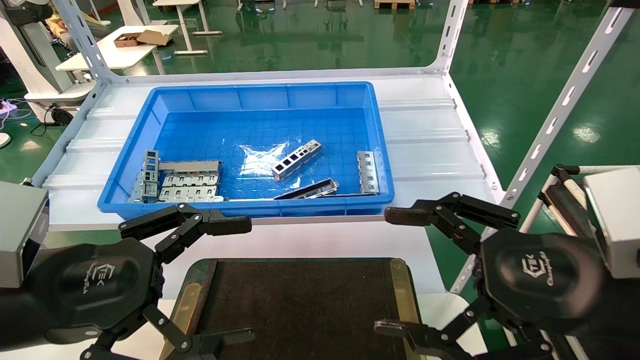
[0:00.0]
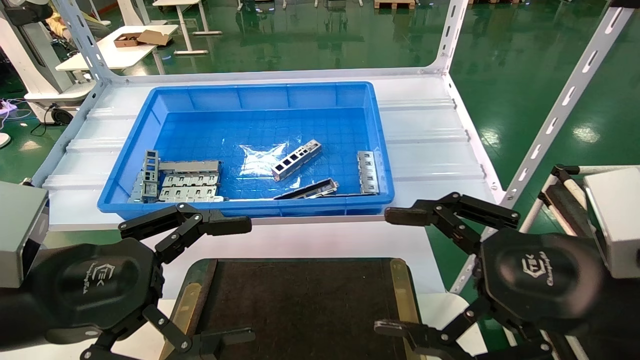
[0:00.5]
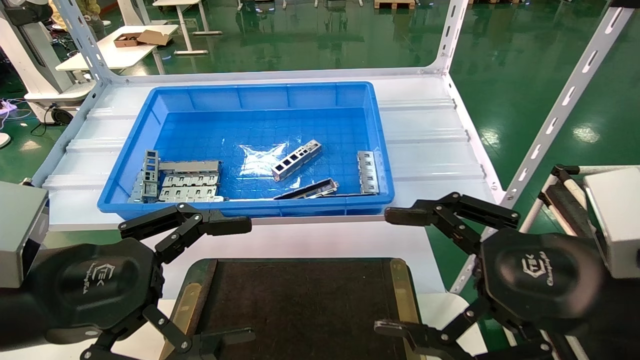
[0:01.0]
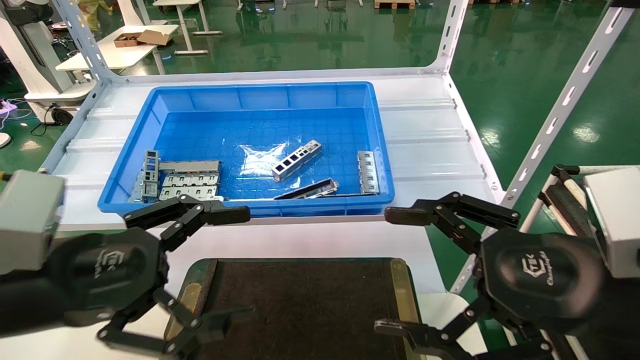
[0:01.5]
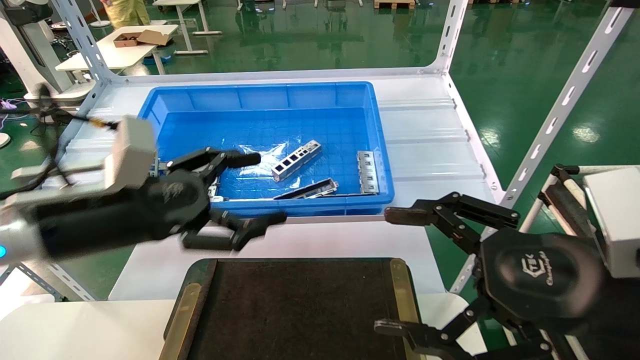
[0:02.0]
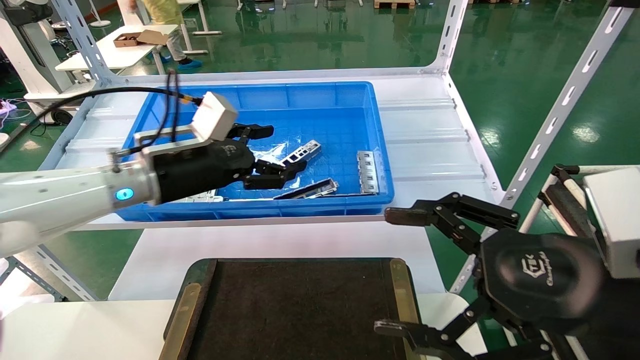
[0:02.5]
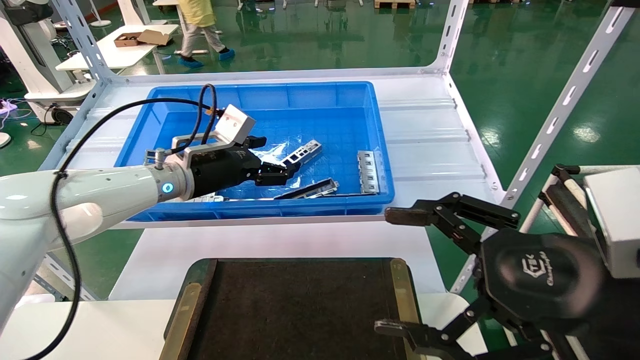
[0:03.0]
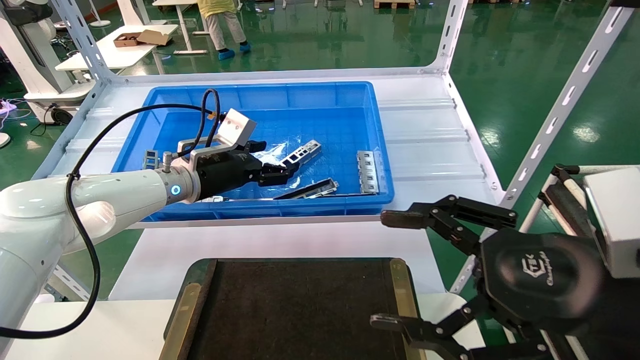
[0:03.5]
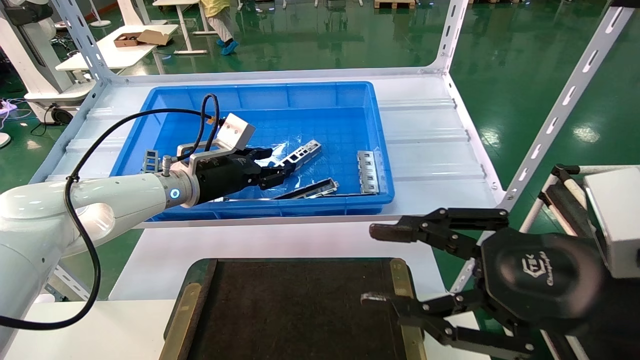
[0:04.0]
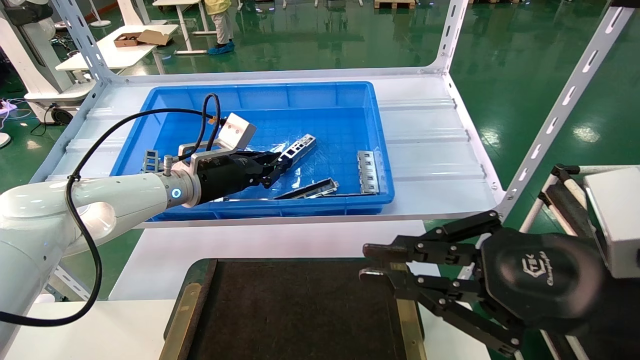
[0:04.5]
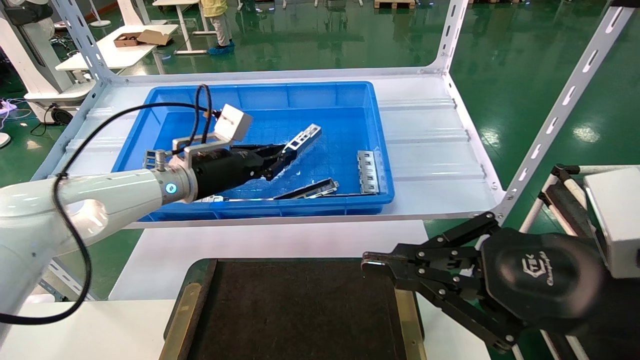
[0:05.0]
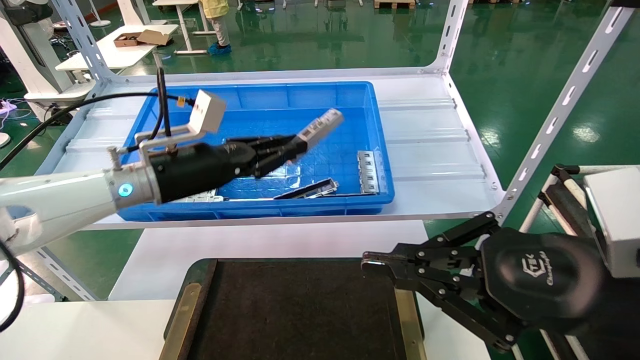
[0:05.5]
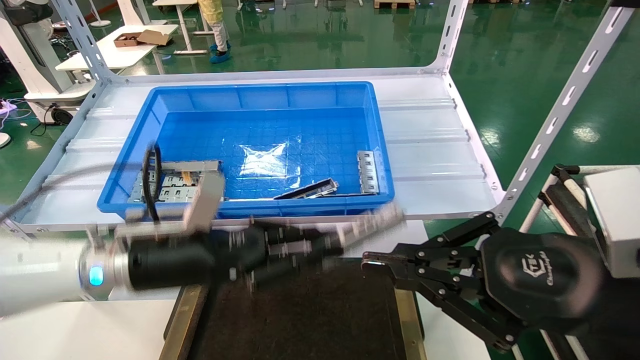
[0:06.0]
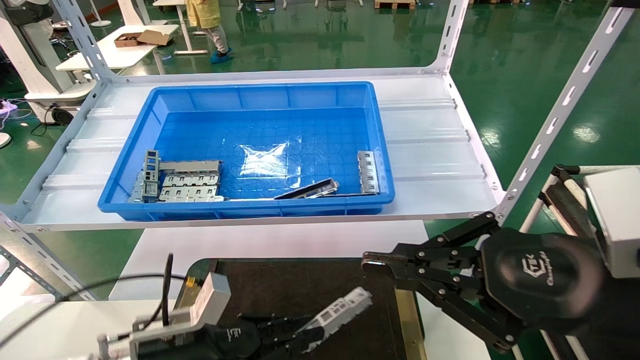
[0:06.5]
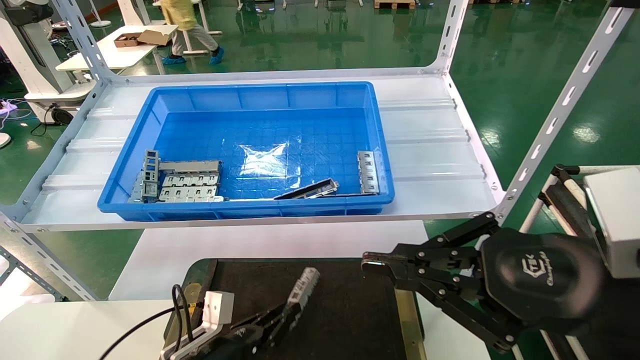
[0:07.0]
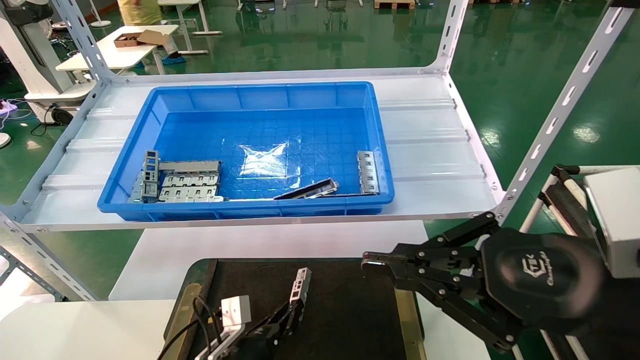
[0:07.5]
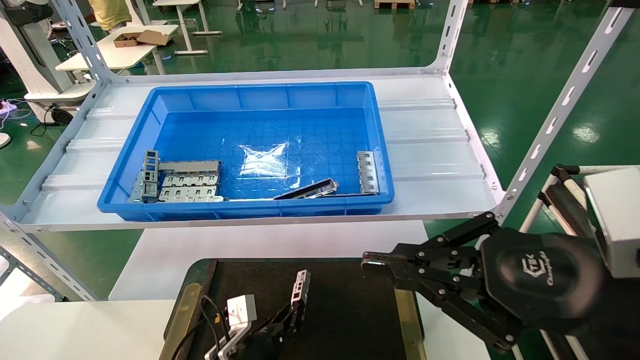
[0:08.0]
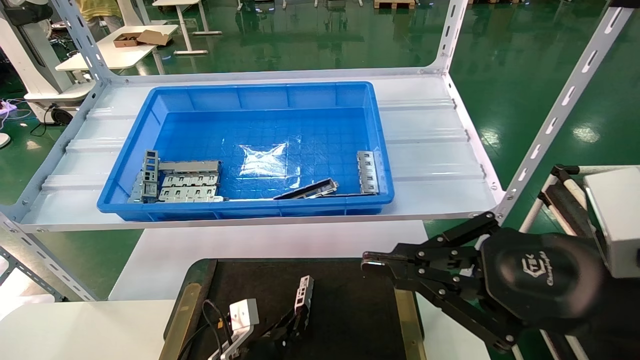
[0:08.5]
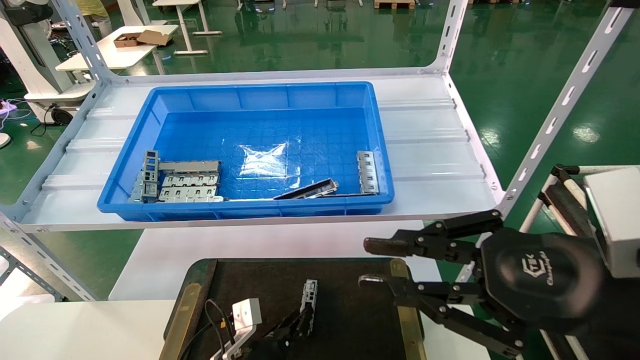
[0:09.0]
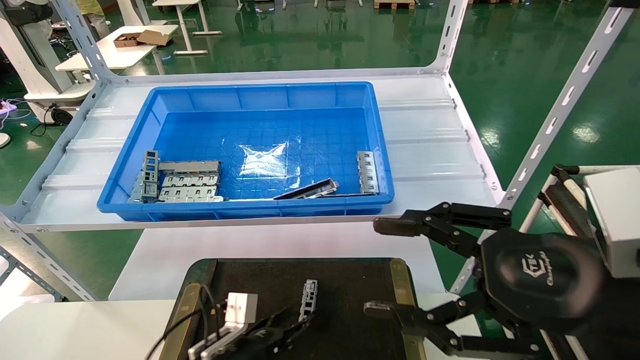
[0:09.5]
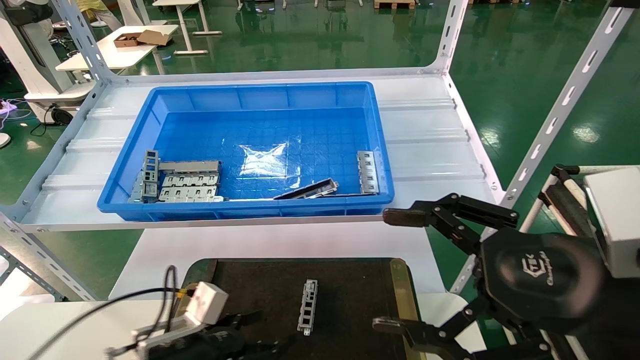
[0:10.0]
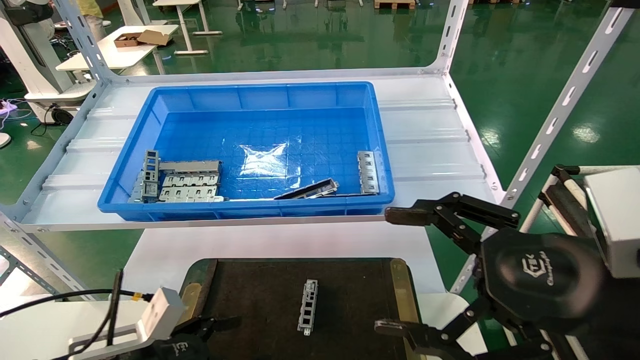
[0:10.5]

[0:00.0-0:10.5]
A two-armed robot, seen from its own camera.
Task of the whole recording: Grasp the part with one hand and place it on the black container.
Step, 0:02.0 to 0:04.5: Pick up the front USB bracket from the feeding area.
Step, 0:05.0 to 0:09.0: Place the front USB bracket into the box.
0:00.0 to 0:02.0: The left gripper shifts about 10 cm forward.
0:02.0 to 0:04.0: The right gripper closes up; the left gripper goes approximately 20 cm forward, and closes its fingers.
0:04.0 to 0:06.5: The right gripper closes. Meanwhile the left gripper heads downward and backward, covering some 25 cm, and closes up.
0:06.5 to 0:08.5: The left gripper travels downward, to the right and forward by about 15 cm.
0:08.5 to 0:10.5: The right gripper opens; the left gripper travels to the left, upward and backward by about 20 cm, and opens its fingers.

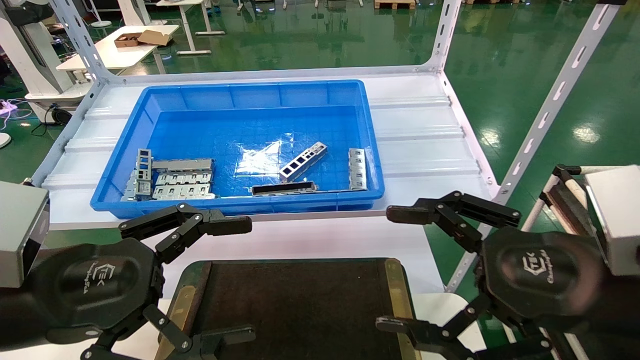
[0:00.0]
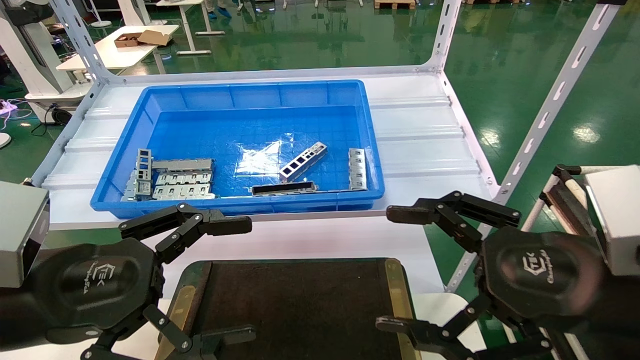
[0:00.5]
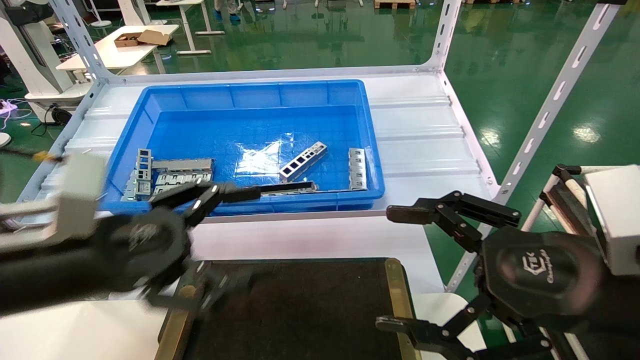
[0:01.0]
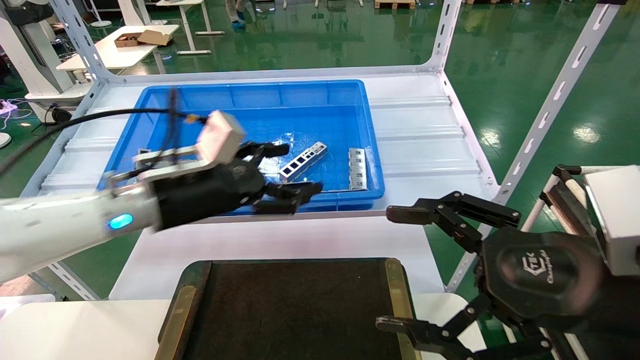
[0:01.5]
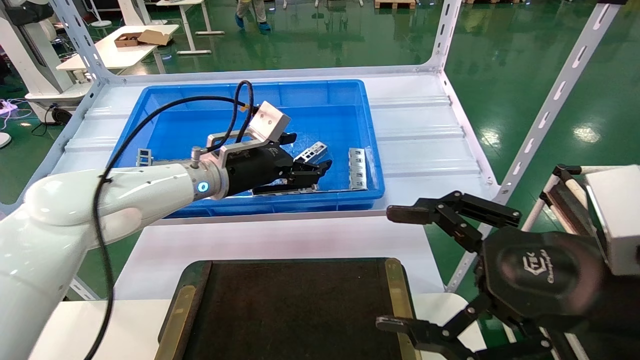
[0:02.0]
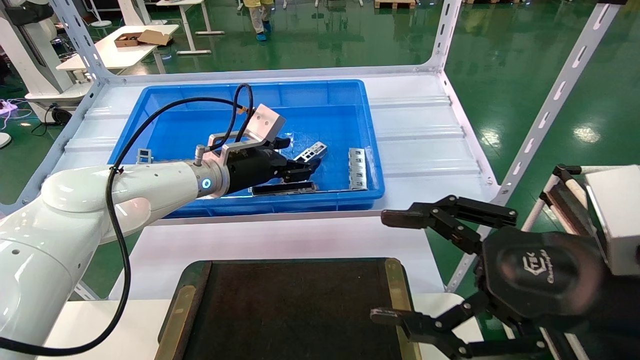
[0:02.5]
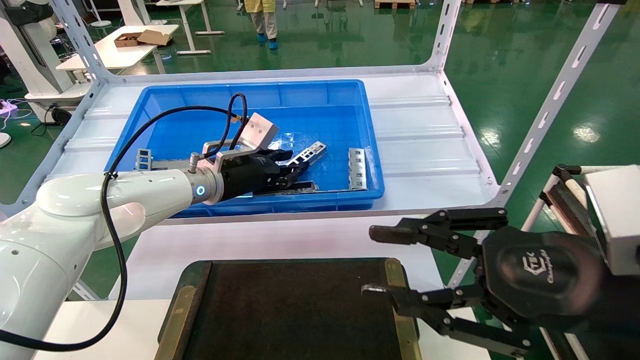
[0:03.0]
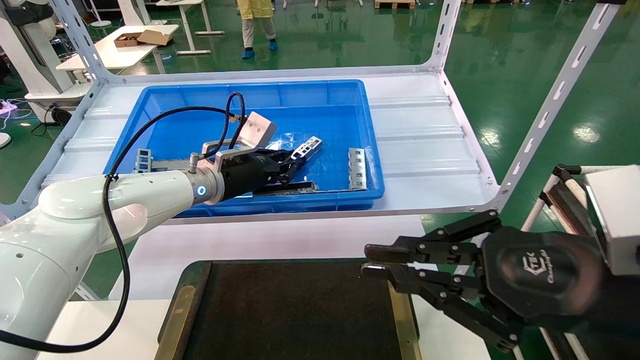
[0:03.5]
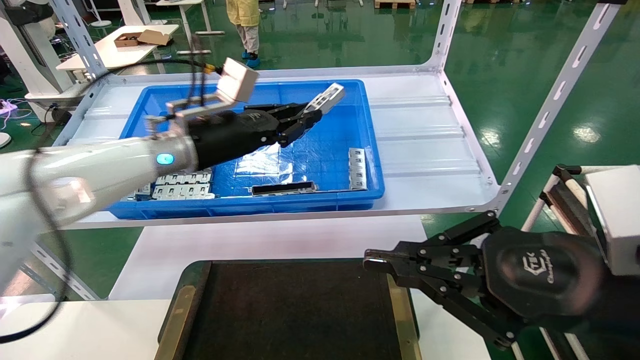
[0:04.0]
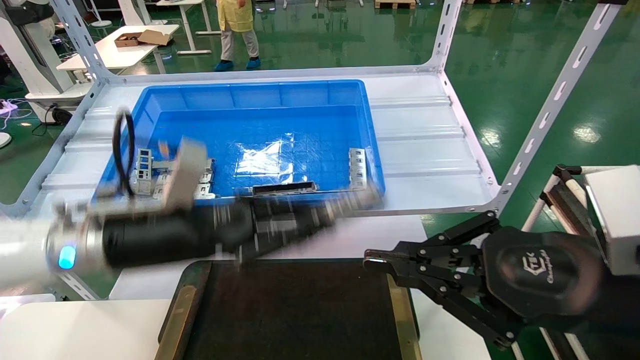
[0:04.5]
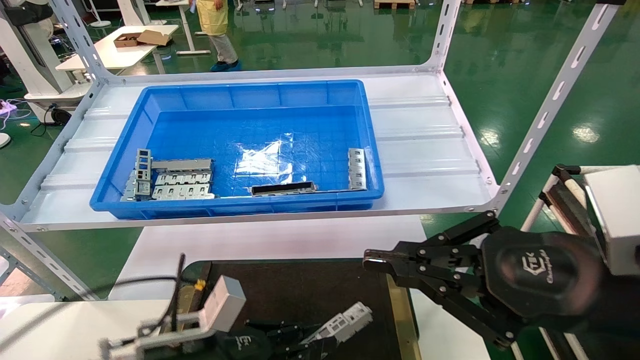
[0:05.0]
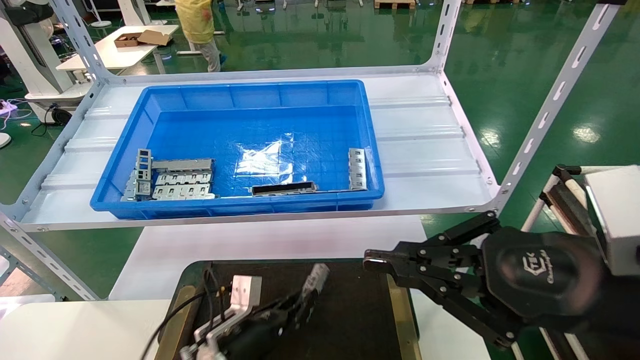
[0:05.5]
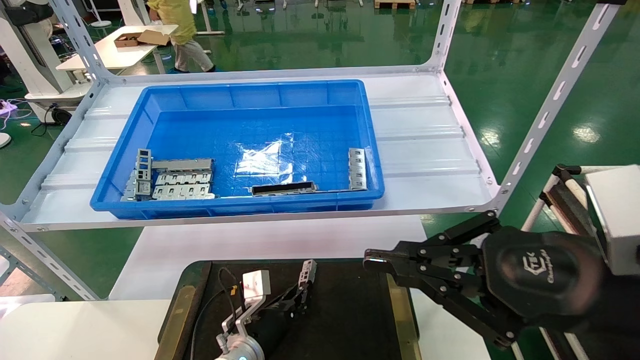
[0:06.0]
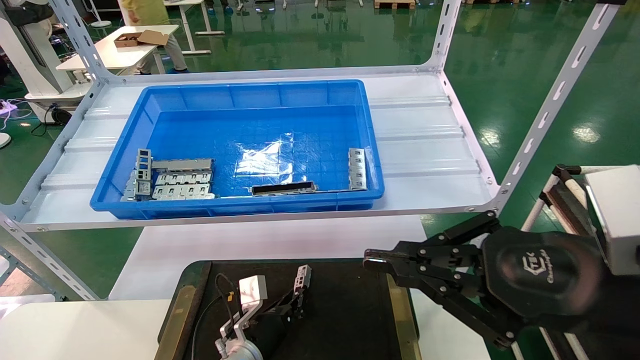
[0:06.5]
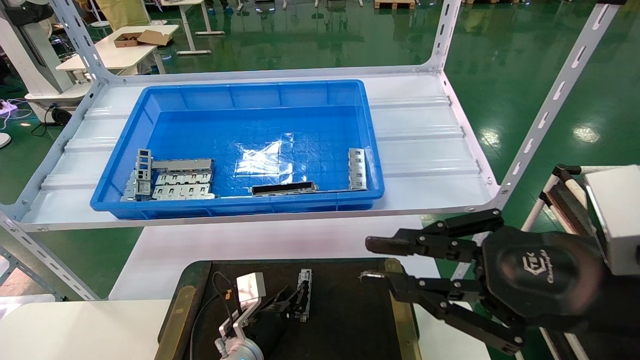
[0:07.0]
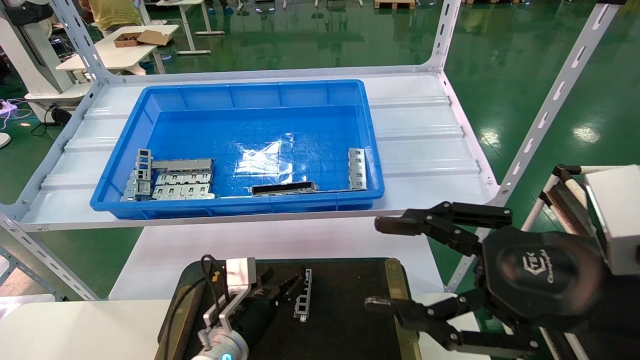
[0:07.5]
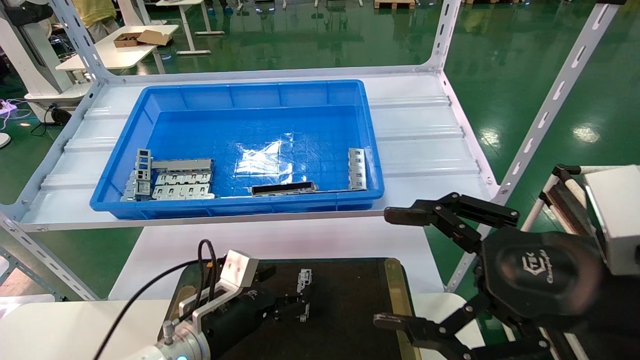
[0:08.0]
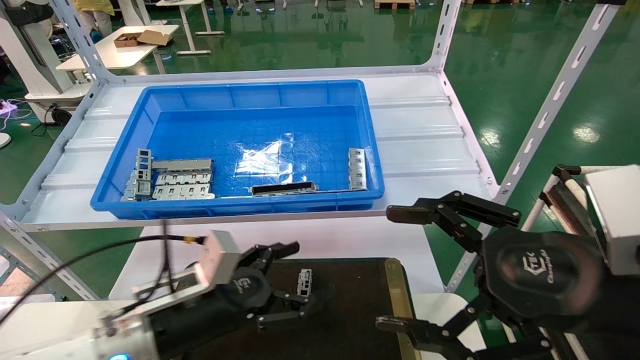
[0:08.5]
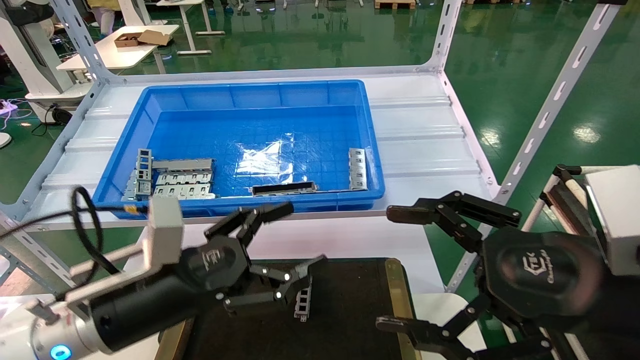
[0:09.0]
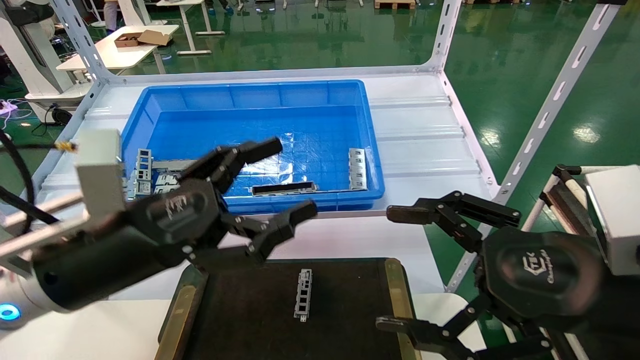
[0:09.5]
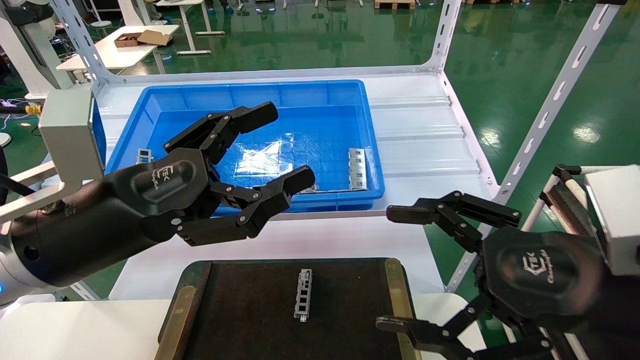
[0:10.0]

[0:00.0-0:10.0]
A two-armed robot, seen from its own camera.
Task of the whole recording: Grasp the part with one hand and place it on the black container.
Step, 0:01.5 to 0:03.0: Pick up the front USB bracket from the feeding area.
Step, 0:03.5 to 0:06.5: Place the front USB bracket into the box.
0:00.0 to 0:02.0: The left gripper moves forward and to the right, roughly 30 cm.
0:02.0 to 0:04.0: The right gripper closes. Meanwhile the left gripper ends up some 5 cm from where it was, and closes.
0:04.0 to 0:06.0: The left gripper moves downward, approximately 35 cm.
0:06.0 to 0:08.0: The left gripper is displaced upward and backward by approximately 10 cm, and opens up; the right gripper opens.
0:08.0 to 0:10.0: The left gripper is displaced upward and backward by roughly 25 cm.
